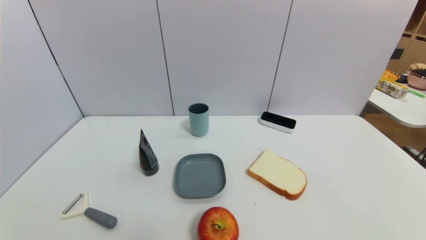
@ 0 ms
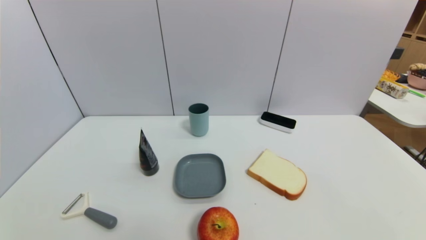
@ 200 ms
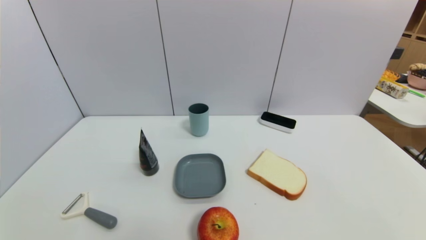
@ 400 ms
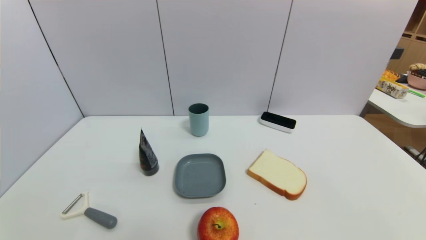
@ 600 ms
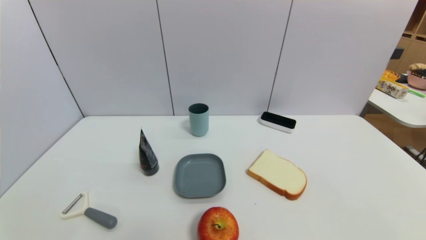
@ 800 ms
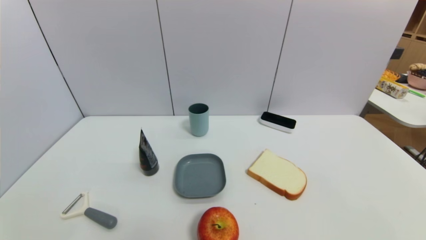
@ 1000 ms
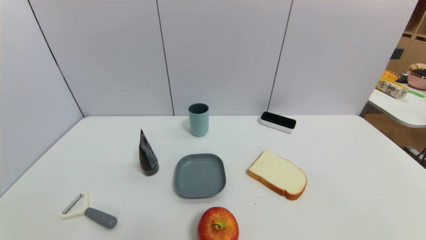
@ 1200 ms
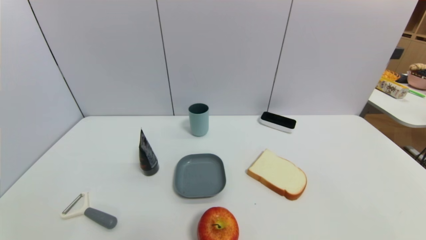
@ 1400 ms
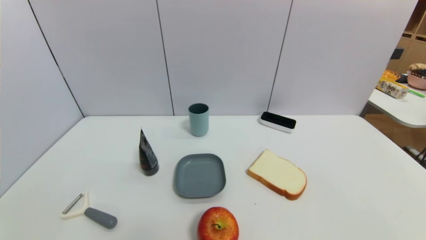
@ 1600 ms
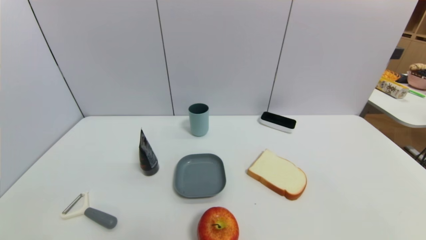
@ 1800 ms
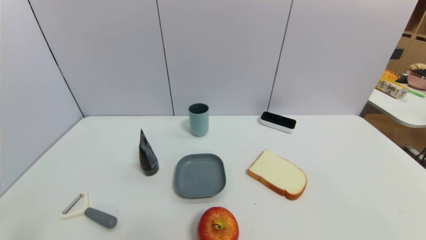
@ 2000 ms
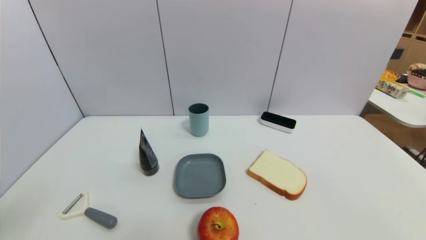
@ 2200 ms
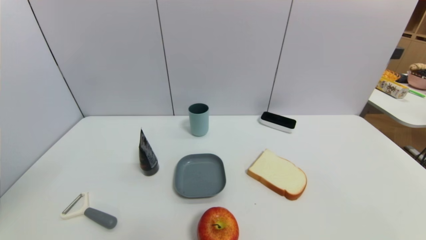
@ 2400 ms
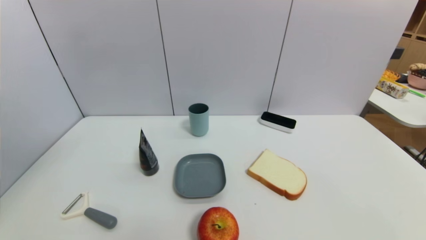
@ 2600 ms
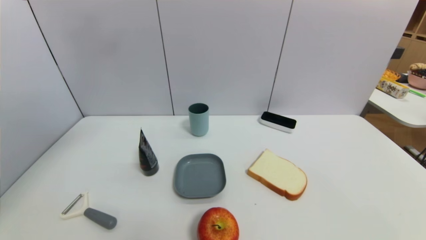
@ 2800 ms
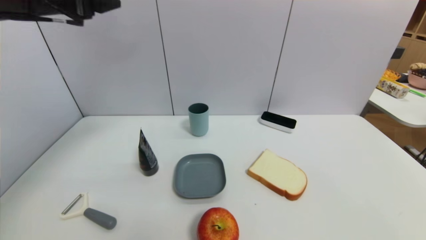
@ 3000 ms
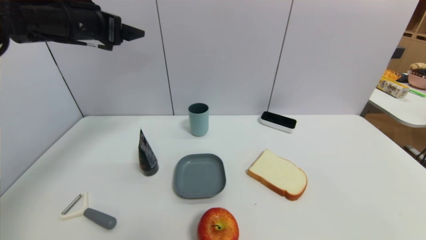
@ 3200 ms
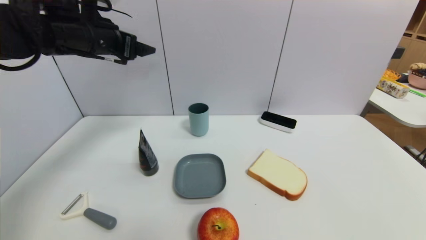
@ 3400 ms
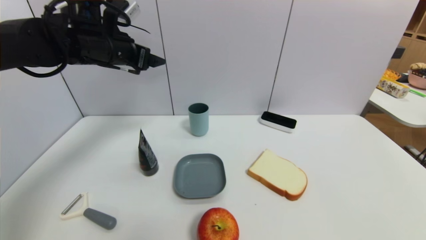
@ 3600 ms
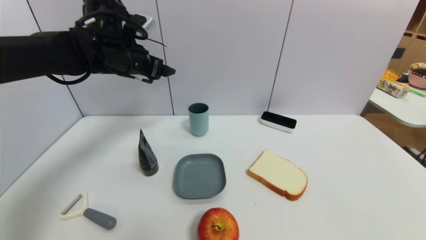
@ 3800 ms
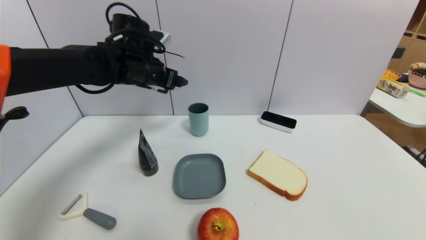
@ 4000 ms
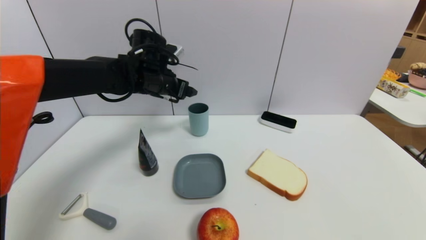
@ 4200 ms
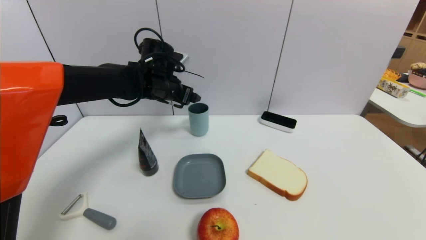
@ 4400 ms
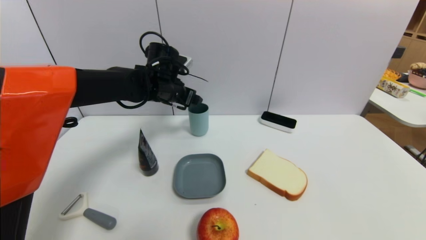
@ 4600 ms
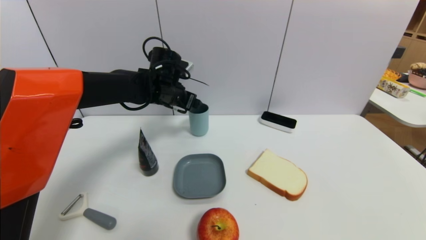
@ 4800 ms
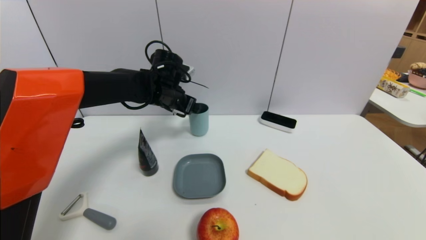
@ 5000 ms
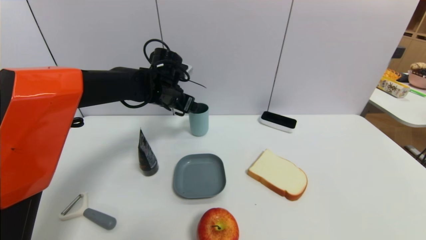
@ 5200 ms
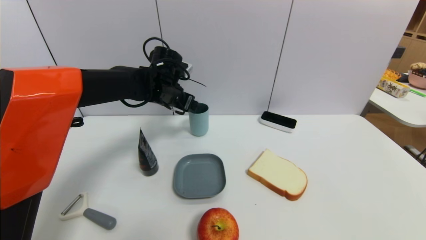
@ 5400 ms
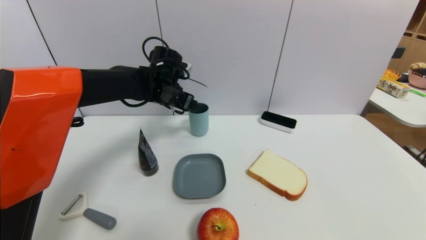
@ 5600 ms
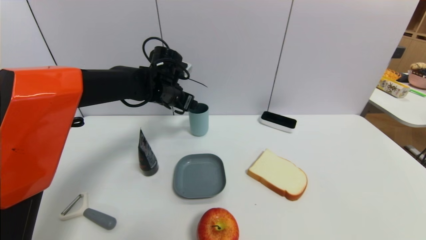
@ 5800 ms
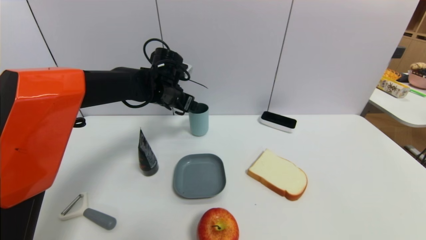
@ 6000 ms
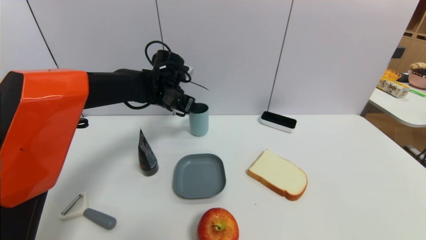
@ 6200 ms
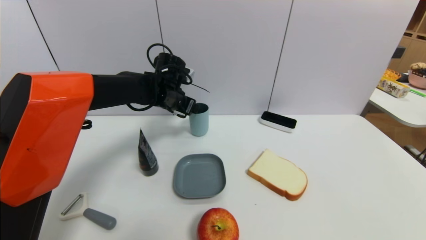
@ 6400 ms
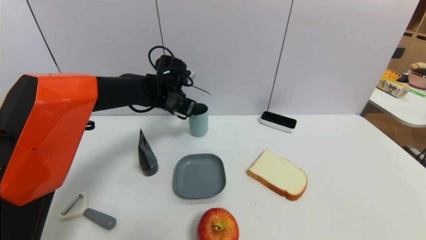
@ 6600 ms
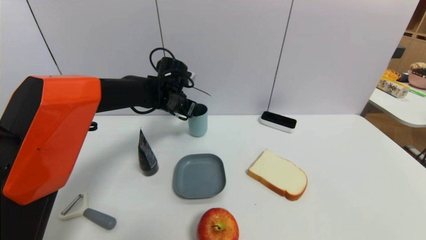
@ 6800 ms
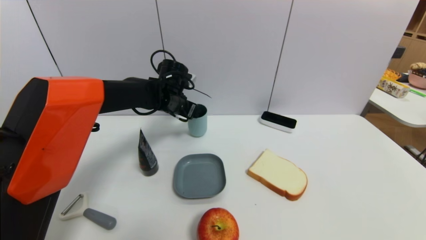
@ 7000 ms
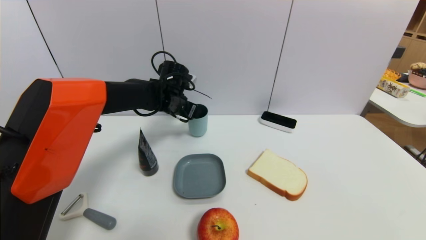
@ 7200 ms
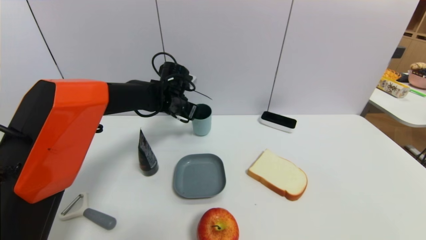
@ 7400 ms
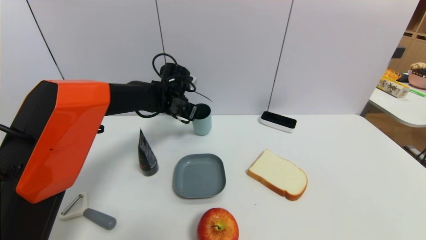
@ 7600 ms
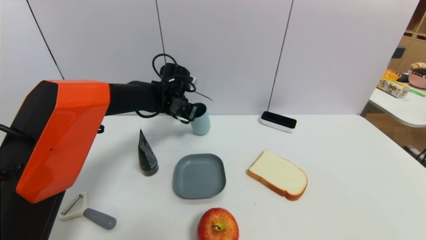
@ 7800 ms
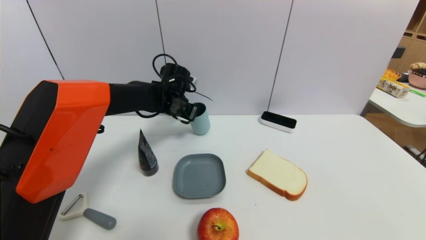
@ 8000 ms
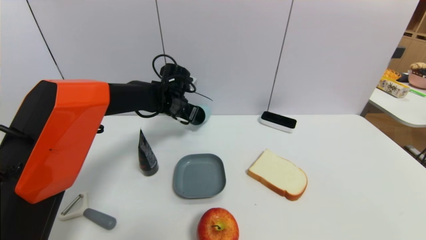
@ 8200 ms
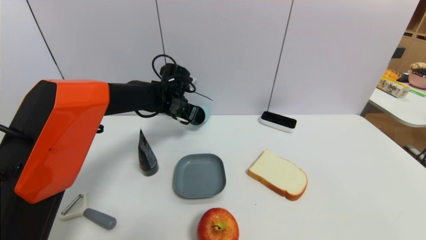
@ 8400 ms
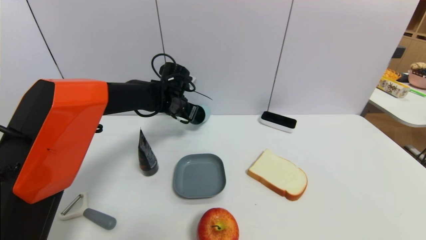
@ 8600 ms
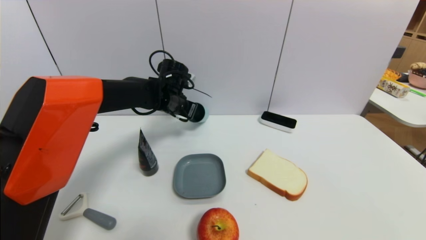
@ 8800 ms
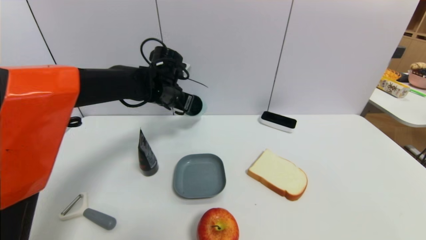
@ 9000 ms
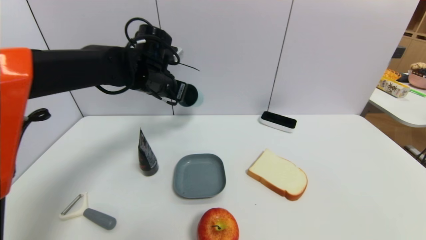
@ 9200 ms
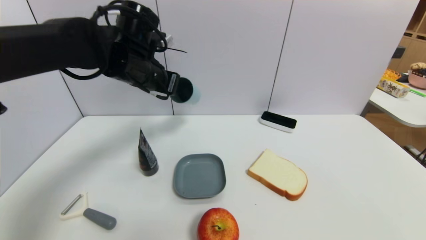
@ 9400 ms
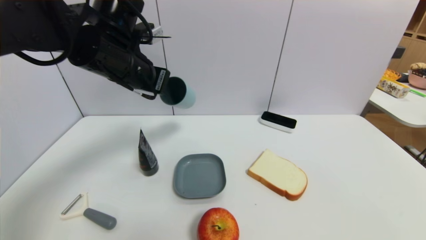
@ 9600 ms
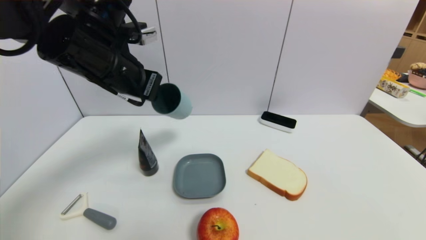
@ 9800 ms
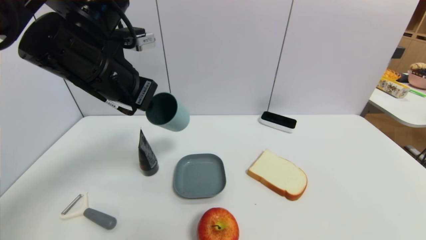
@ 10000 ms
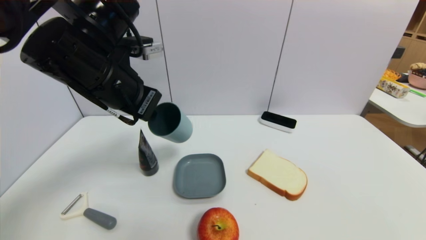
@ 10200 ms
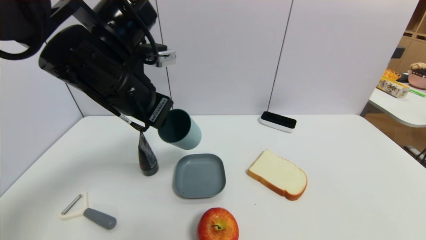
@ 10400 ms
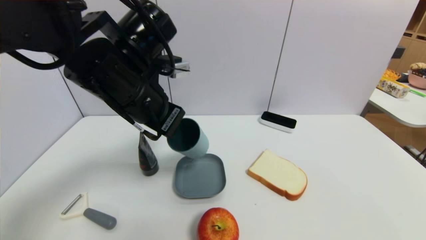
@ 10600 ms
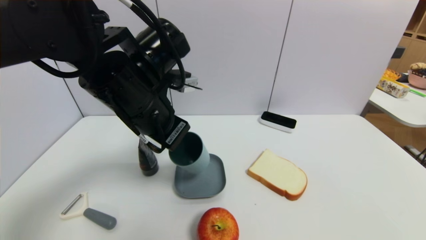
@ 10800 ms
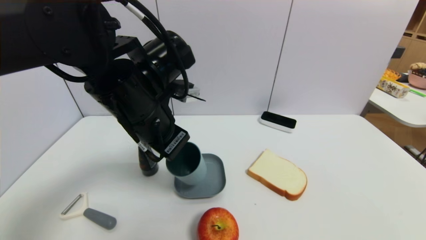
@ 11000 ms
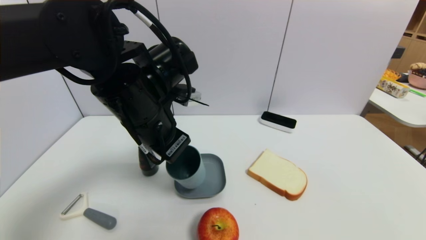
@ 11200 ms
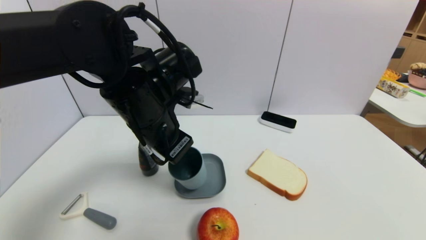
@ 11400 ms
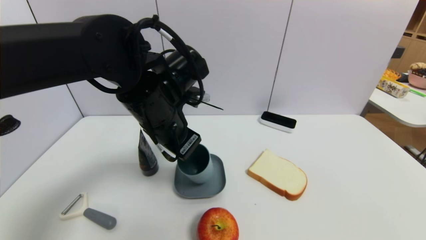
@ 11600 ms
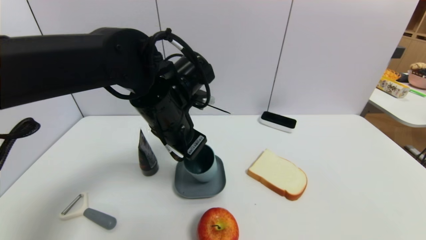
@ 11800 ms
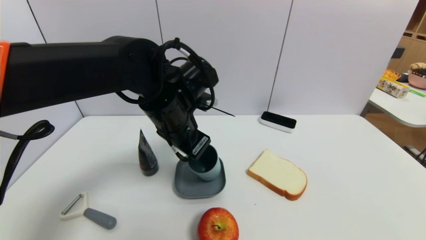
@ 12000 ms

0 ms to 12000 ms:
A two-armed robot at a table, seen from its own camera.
Task of the whole recording: use a gripper to pick the target object and place on the dish.
Step, 0 ms to 8400 ms: Grasp the blue cup with the left gripper.
1600 ms to 3000 ms: The left gripper moves forward and upward, some 40 cm.
3000 ms to 4400 ms: The left gripper heads downward, to the right and forward, covering approximately 25 cm.
4400 ms to 6000 ms: The grippers move only a little.
6000 ms to 7600 ms: There are only small adjustments of the grippers.
7600 ms to 9000 ms: The left gripper closes its fingers.
9000 ms to 10400 ms: The left gripper goes roughly 20 cm backward and upward.
10400 ms to 12000 ms: The left gripper moves downward and to the right, roughly 10 cm.

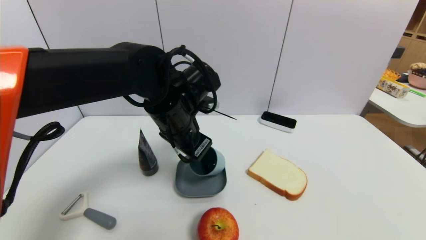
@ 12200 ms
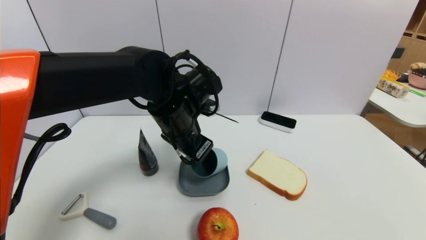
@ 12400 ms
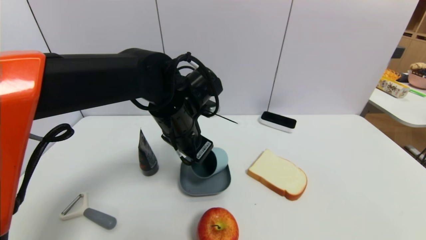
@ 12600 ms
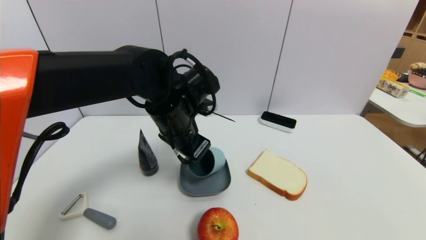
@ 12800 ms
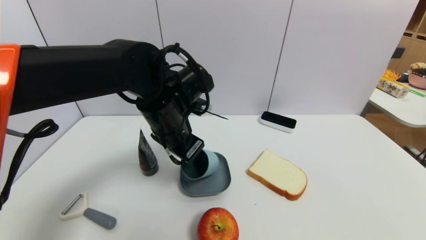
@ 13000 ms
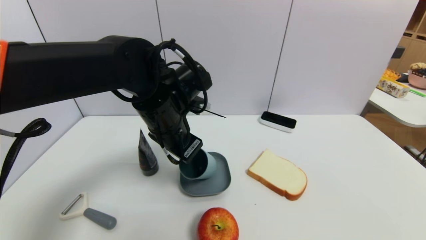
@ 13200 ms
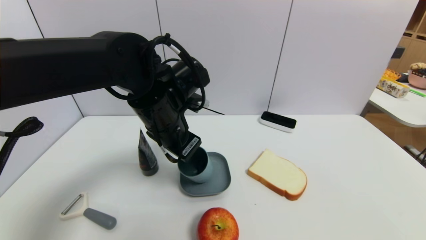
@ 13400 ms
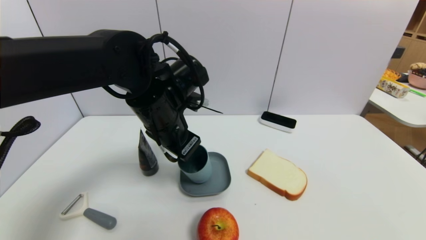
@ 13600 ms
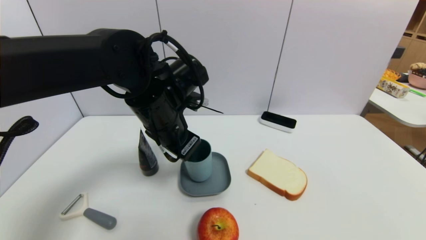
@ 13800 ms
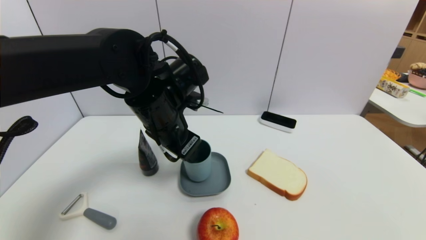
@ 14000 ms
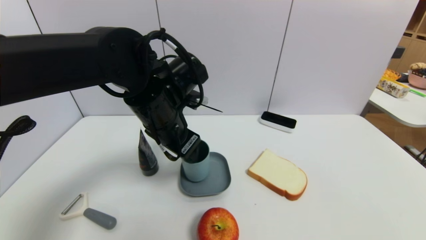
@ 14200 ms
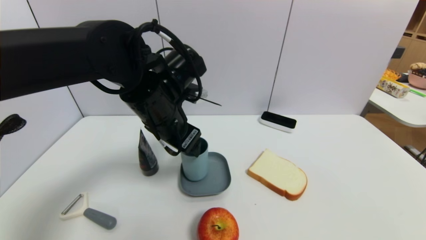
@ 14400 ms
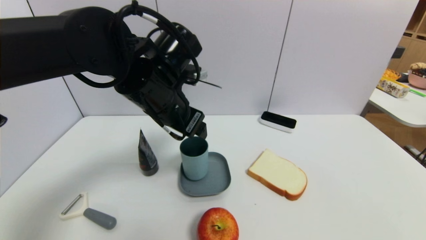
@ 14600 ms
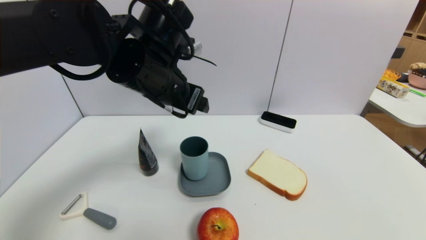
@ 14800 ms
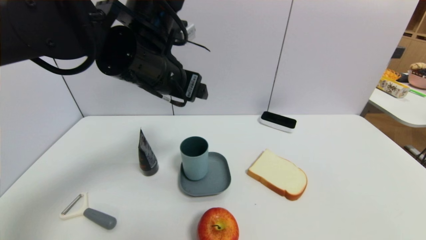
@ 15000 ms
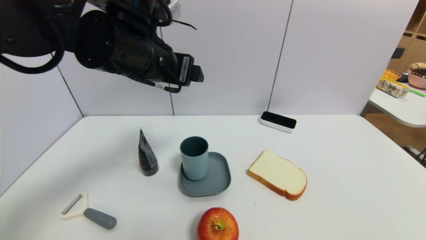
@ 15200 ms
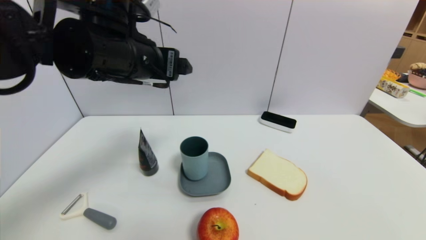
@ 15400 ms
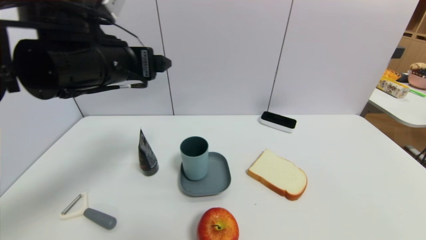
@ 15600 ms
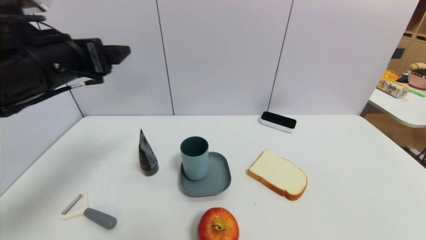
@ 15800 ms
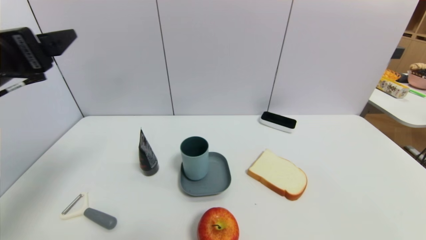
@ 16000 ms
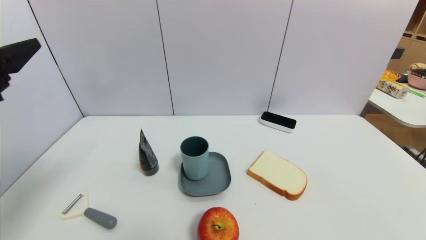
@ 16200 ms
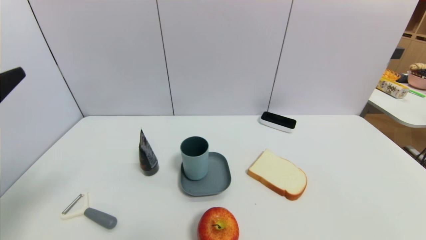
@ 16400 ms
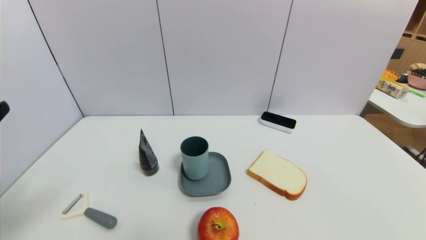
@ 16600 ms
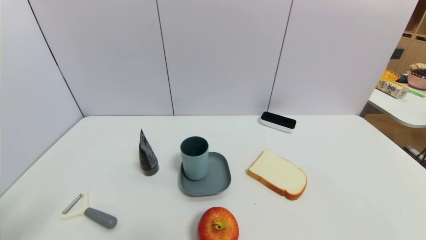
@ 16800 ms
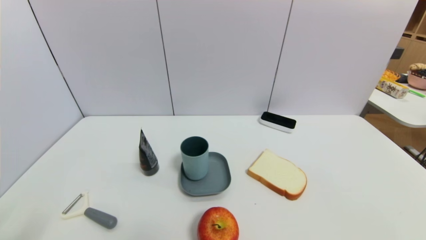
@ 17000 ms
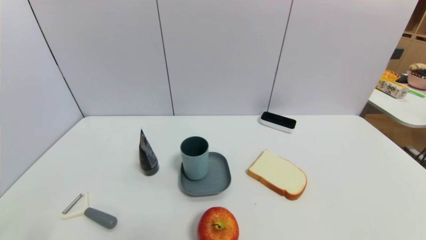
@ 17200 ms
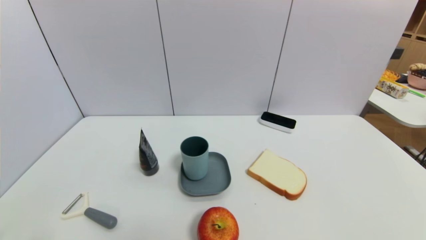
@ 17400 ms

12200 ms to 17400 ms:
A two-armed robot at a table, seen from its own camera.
Task of the whole recording: use a gripper to pick the target object and place on the dish.
Step, 12200 ms to 14800 ms: Place the blue cup on the dish with the left gripper.
12200 ms to 14000 ms: The left gripper opens up.
14000 ms to 15600 ms: The left gripper shifts roughly 10 cm to the left and upward.
15600 ms to 17400 ms: The left gripper is displaced backward, downward and to the left by approximately 35 cm.
